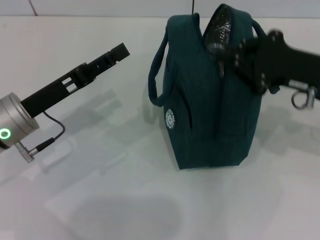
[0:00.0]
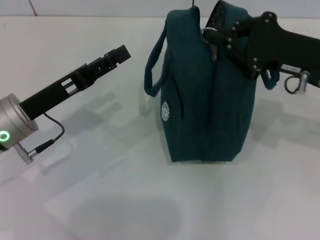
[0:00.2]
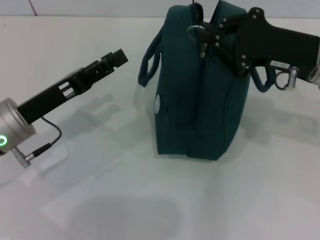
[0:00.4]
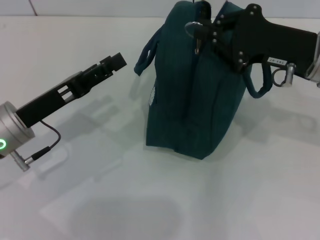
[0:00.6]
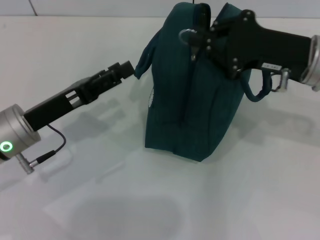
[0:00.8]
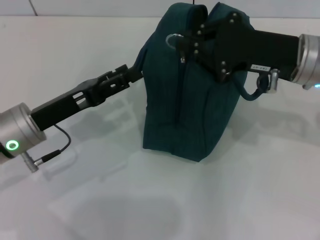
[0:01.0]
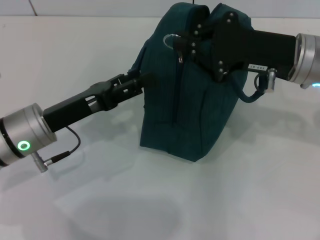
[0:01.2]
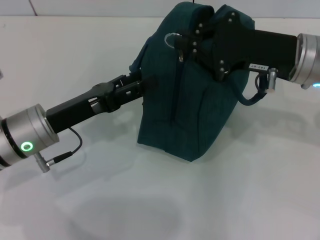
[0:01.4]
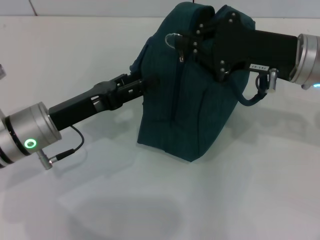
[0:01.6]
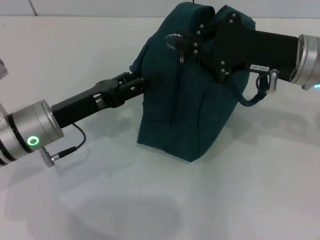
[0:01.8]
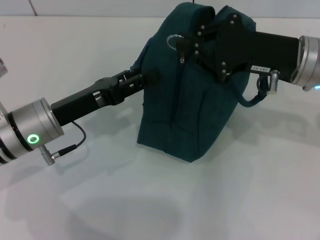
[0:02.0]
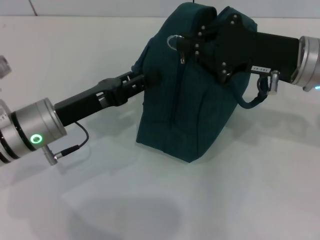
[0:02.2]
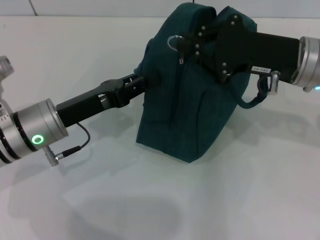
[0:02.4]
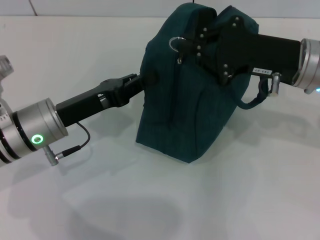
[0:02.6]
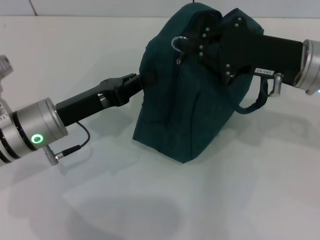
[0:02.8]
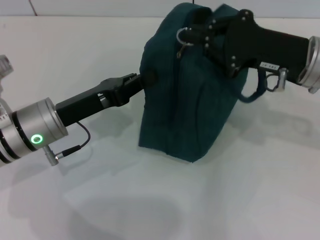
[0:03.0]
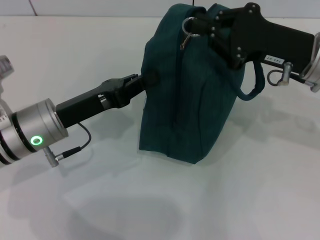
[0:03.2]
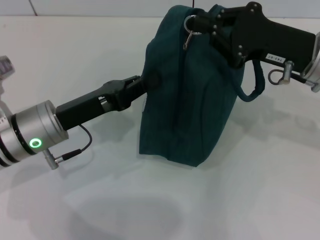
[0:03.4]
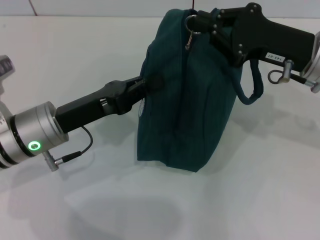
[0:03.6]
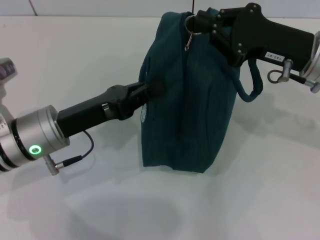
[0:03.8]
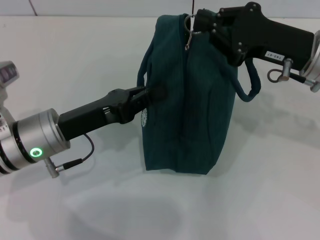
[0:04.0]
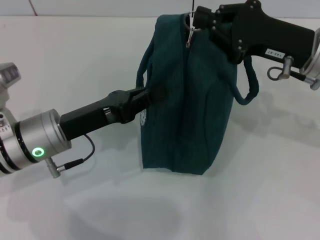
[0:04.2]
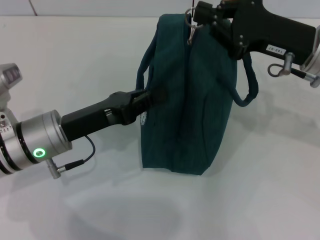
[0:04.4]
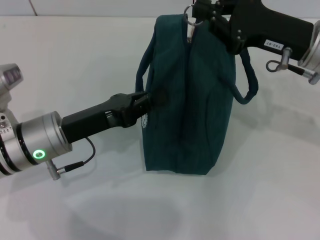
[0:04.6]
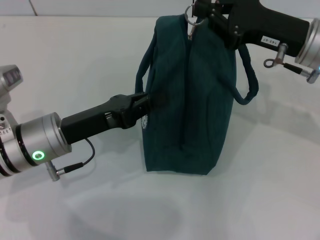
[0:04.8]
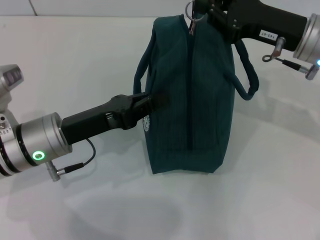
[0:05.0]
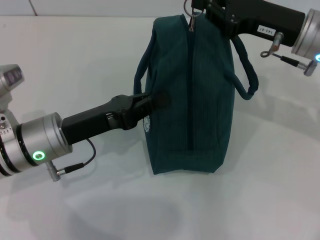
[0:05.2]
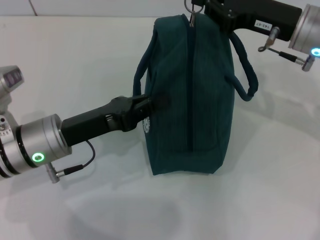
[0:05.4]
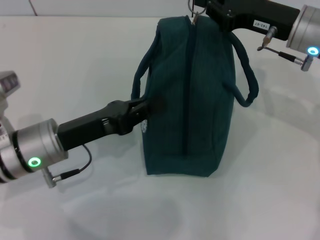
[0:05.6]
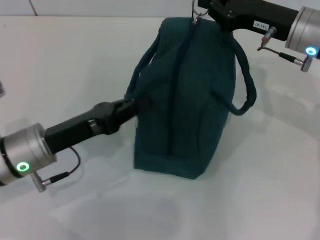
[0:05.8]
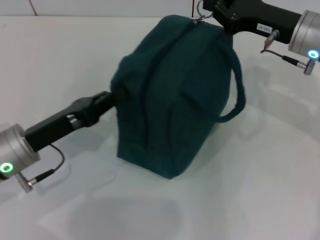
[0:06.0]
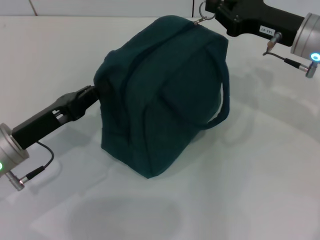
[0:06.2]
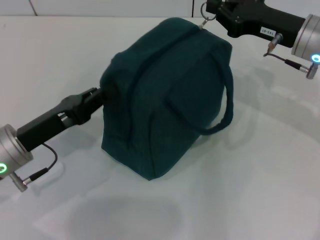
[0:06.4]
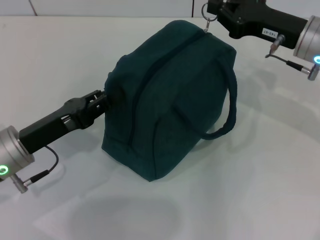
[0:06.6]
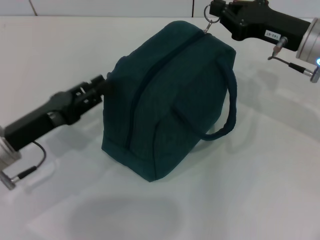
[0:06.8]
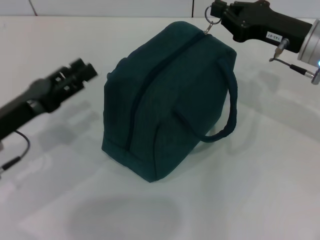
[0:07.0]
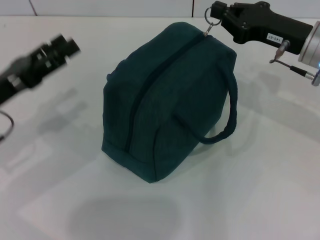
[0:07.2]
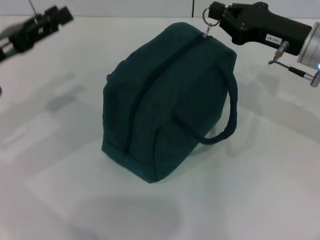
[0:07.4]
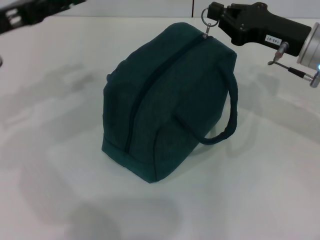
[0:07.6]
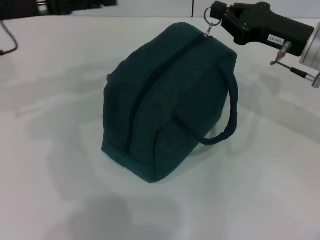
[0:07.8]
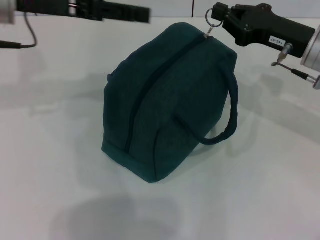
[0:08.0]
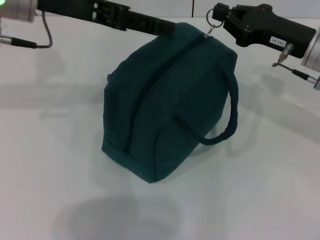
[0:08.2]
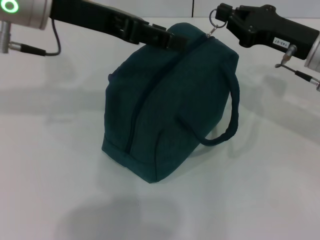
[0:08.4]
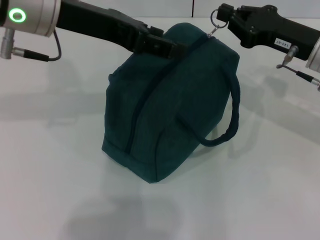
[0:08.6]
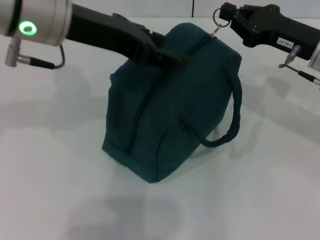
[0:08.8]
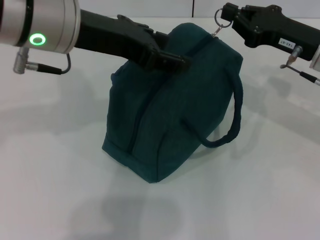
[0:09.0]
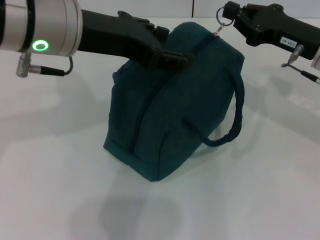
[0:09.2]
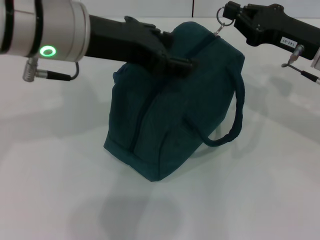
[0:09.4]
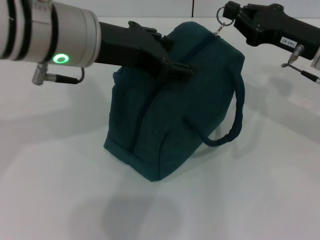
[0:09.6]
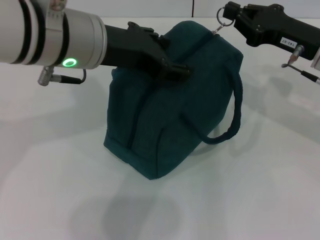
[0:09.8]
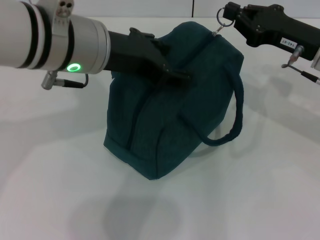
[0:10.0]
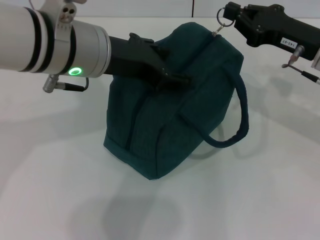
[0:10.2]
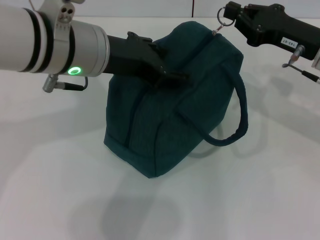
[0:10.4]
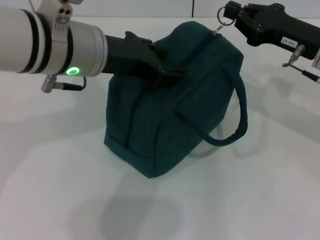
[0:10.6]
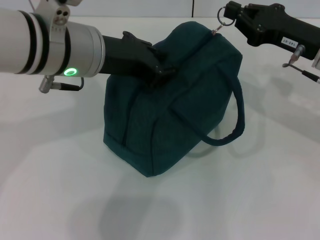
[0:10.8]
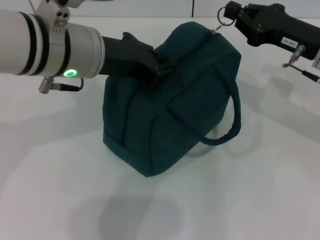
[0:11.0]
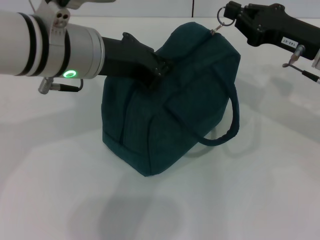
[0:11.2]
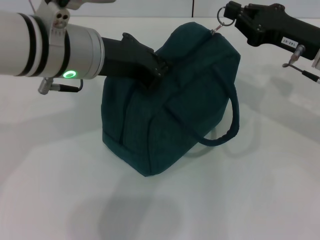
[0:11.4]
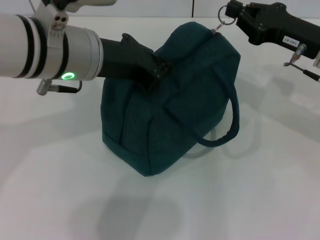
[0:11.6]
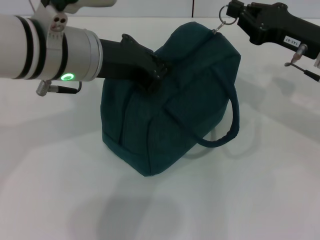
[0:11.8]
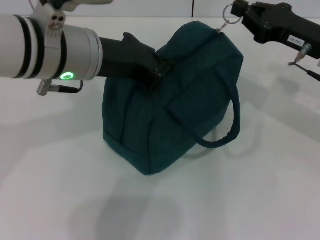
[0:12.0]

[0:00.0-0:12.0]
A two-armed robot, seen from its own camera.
0:00.0 to 0:01.6: The right gripper moves to the left, approximately 5 cm.
0:01.6 to 0:03.0: The left gripper closes up.
0:06.0 to 0:07.6: The left gripper heads upward, forward and to the left, covering some 15 cm, and opens up.
0:07.6 to 0:09.0: The left gripper shifts roughly 15 cm to the right and upward.
0:09.0 to 0:10.4: There are only small adjustments of the grippers.
0:10.4 to 0:12.0: The left gripper closes its fingers.

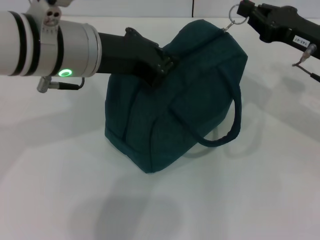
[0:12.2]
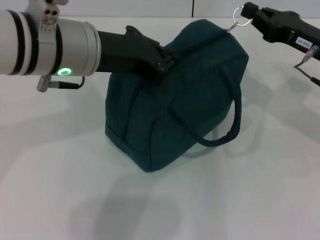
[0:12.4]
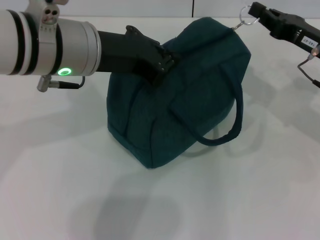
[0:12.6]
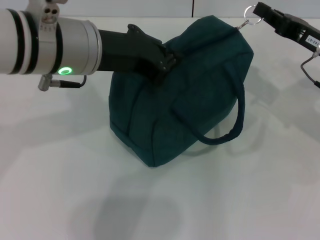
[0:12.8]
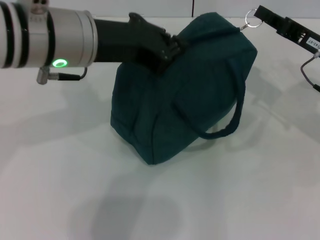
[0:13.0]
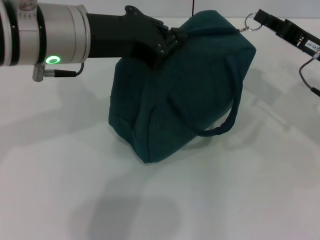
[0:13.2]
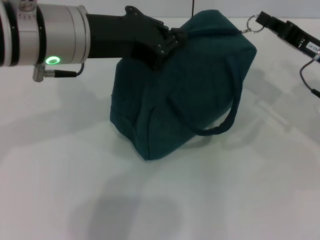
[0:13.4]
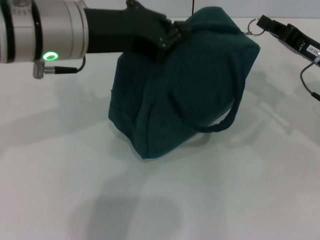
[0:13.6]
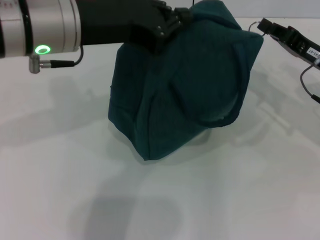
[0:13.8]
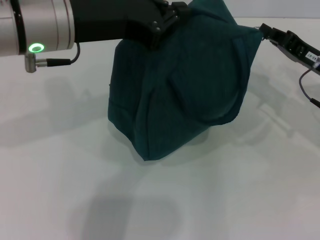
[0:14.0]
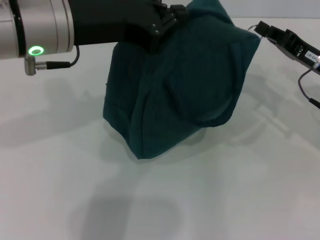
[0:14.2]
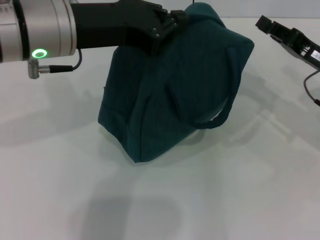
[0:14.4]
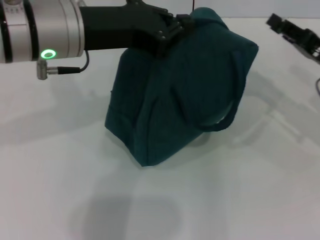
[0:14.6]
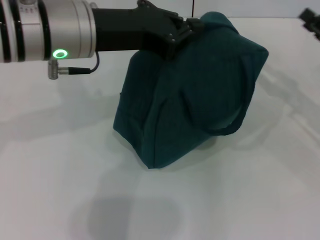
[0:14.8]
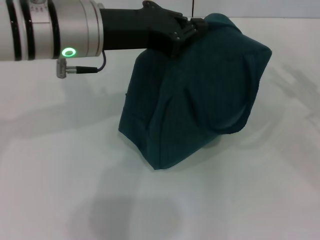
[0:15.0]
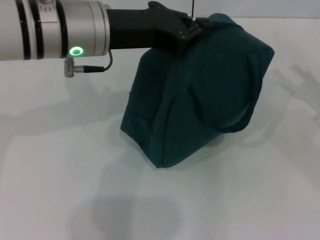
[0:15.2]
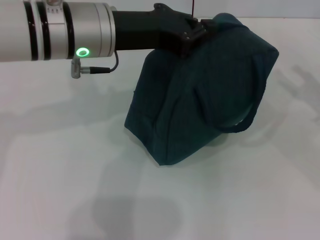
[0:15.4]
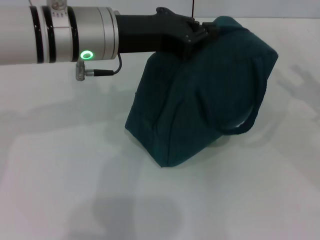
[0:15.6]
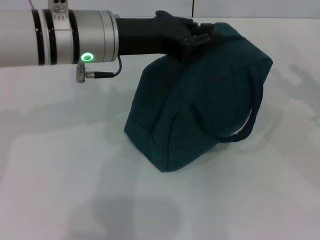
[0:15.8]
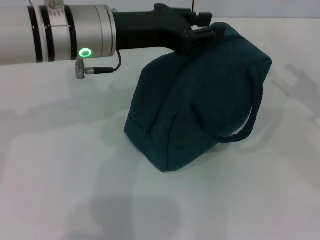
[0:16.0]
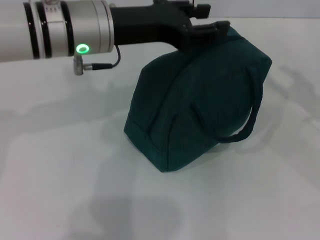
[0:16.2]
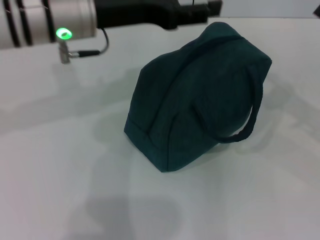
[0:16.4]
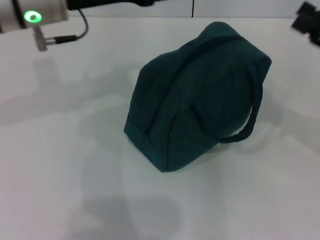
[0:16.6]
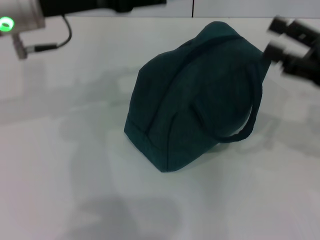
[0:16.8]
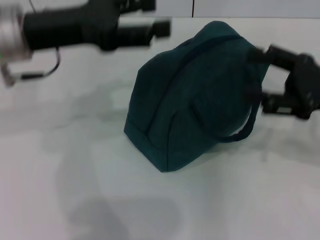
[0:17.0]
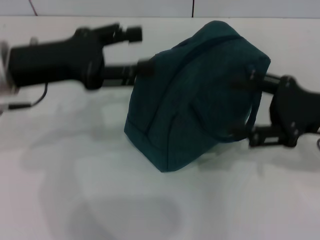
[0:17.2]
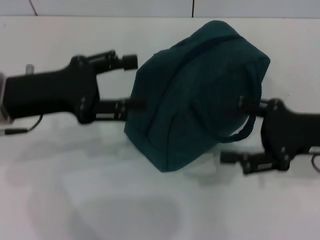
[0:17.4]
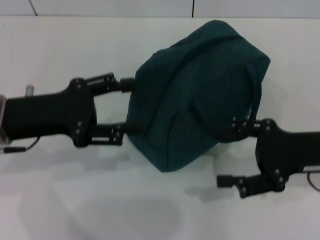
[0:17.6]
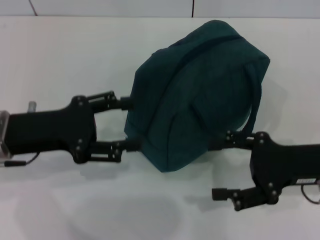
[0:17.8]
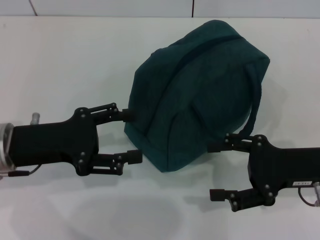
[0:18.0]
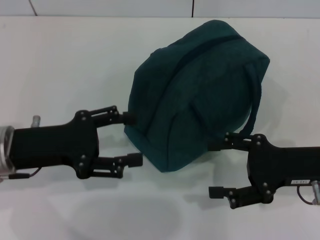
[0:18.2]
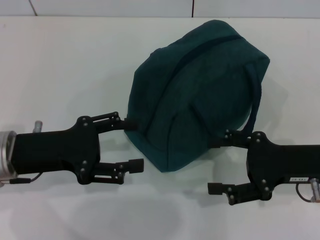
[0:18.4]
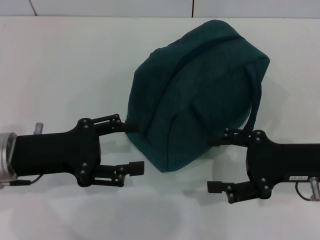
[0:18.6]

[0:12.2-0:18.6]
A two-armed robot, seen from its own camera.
Step, 0:12.2 to 0:14.2: Zip up the lunch bag with your right hand.
Step, 0:14.4 to 0:16.0: Hold the lunch bag with your left hand.
0:13.8 to 0:15.4: The left gripper changes place by some 5 cm; the right gripper goes approximately 10 cm to the right and backward, and opens.
0:15.4 to 0:17.0: The grippers both shift to the left by roughly 10 cm. The left gripper opens its fingers.
0:17.0 to 0:18.6: The right gripper heads downward, covering some 5 cm. Meanwhile the left gripper shifts about 15 cm downward and backward.
